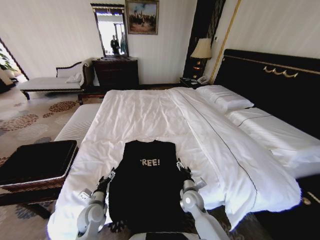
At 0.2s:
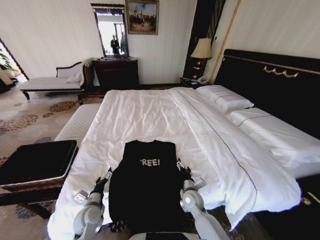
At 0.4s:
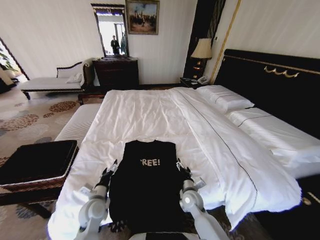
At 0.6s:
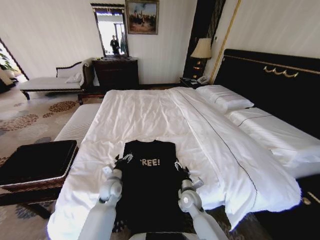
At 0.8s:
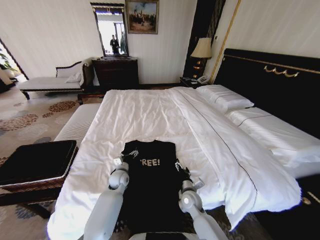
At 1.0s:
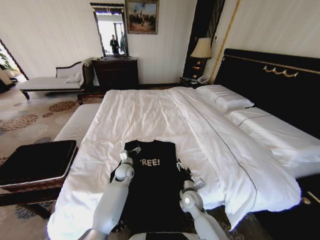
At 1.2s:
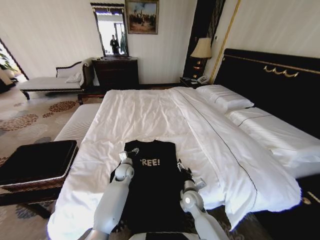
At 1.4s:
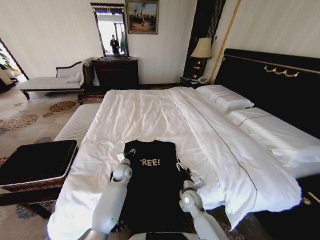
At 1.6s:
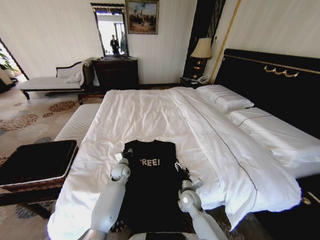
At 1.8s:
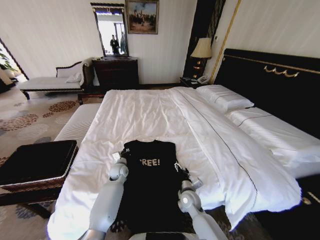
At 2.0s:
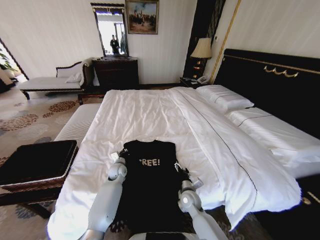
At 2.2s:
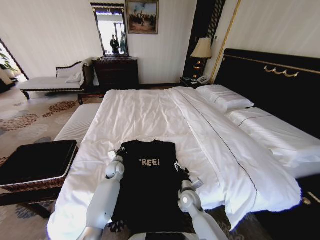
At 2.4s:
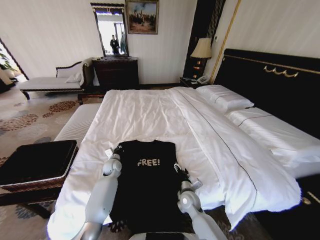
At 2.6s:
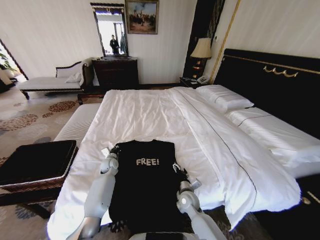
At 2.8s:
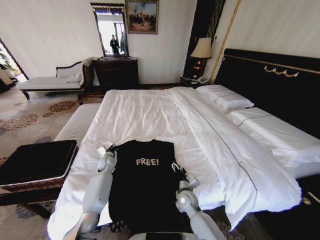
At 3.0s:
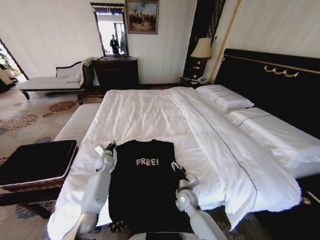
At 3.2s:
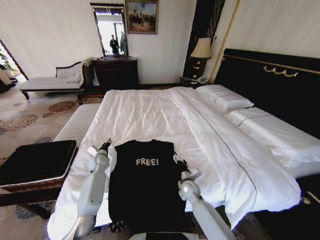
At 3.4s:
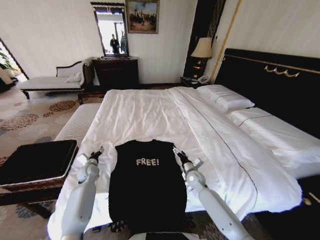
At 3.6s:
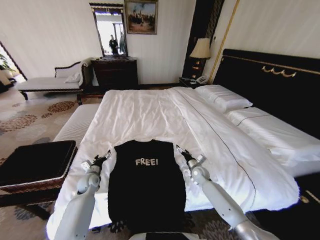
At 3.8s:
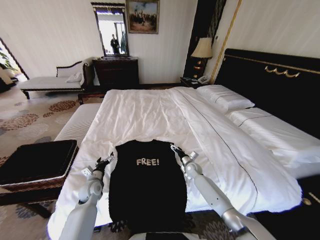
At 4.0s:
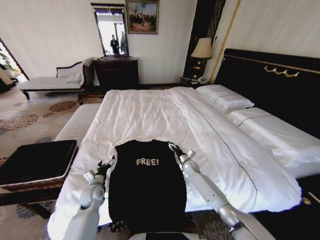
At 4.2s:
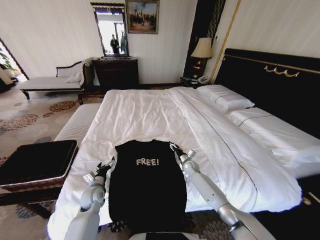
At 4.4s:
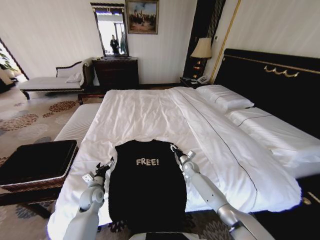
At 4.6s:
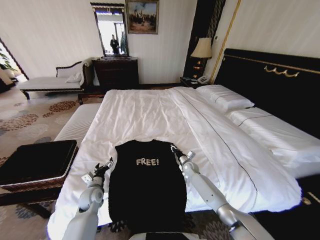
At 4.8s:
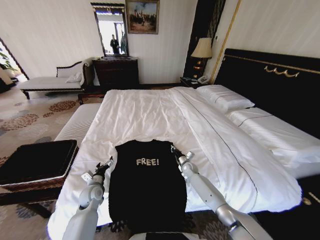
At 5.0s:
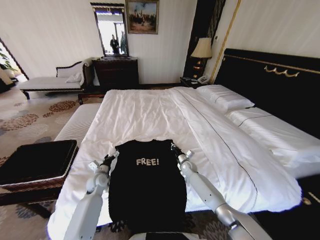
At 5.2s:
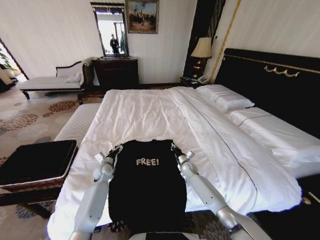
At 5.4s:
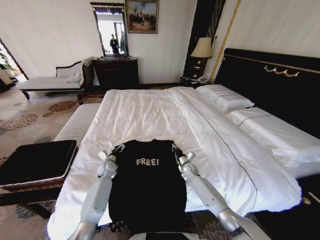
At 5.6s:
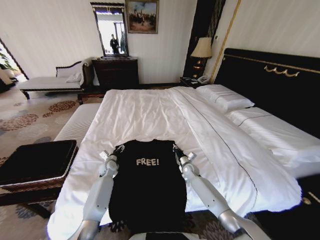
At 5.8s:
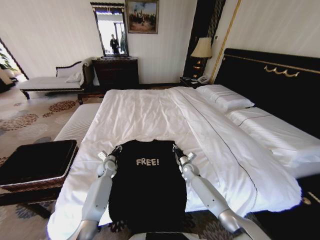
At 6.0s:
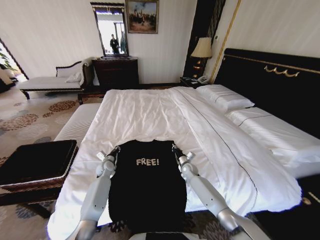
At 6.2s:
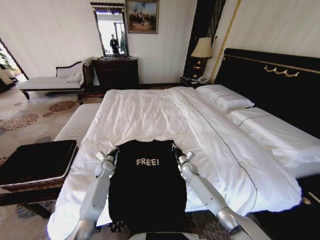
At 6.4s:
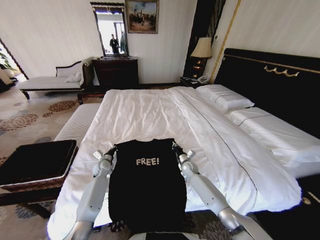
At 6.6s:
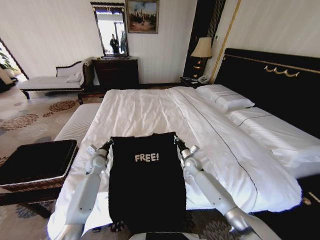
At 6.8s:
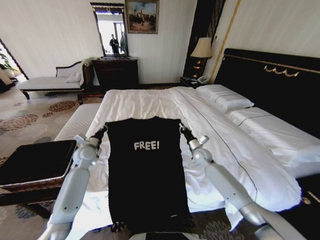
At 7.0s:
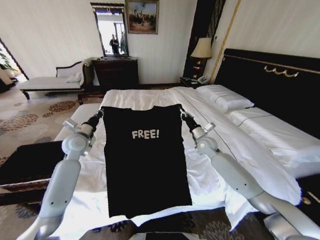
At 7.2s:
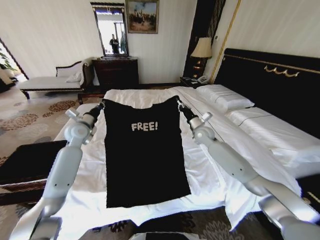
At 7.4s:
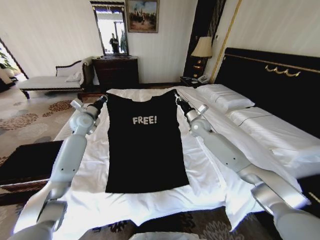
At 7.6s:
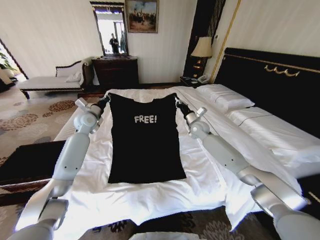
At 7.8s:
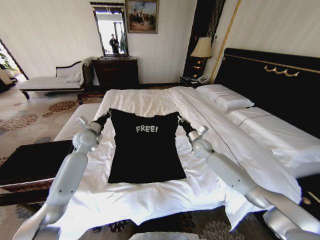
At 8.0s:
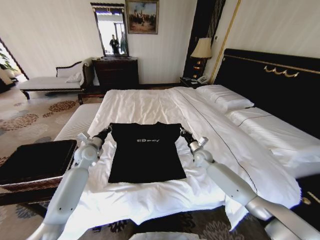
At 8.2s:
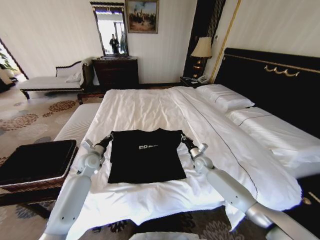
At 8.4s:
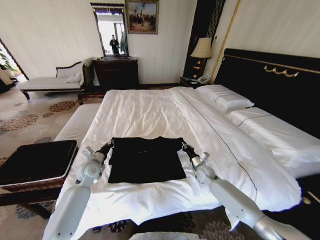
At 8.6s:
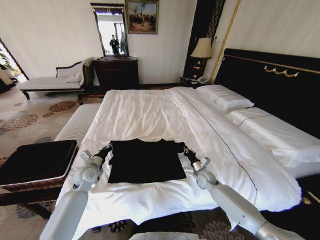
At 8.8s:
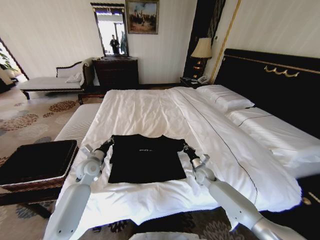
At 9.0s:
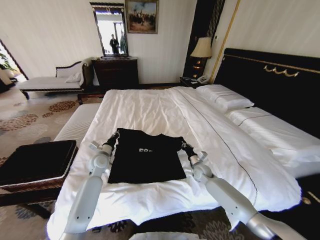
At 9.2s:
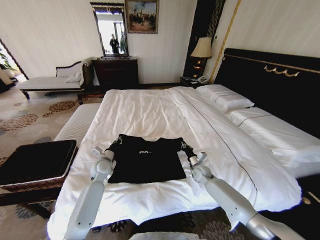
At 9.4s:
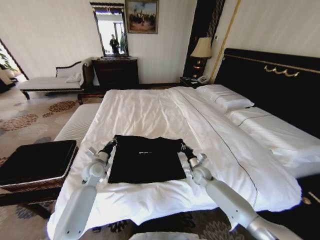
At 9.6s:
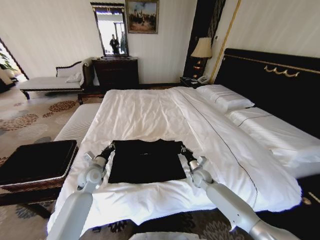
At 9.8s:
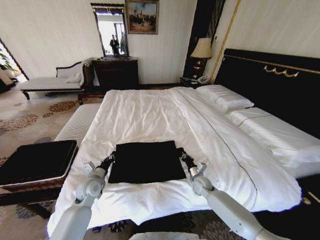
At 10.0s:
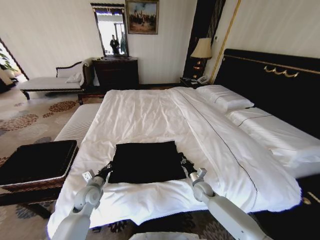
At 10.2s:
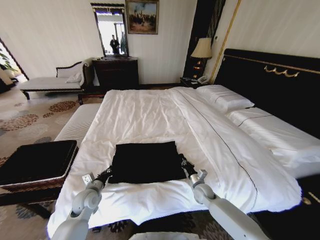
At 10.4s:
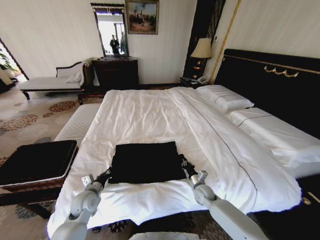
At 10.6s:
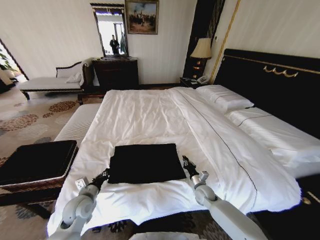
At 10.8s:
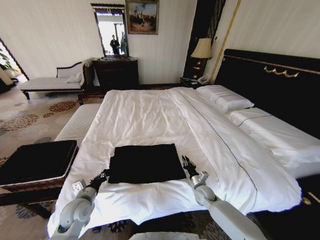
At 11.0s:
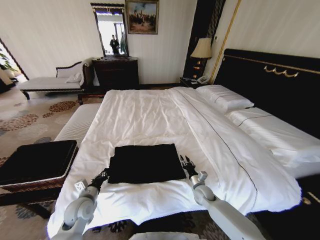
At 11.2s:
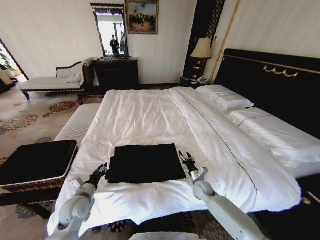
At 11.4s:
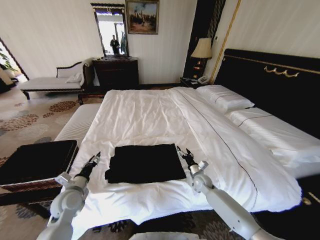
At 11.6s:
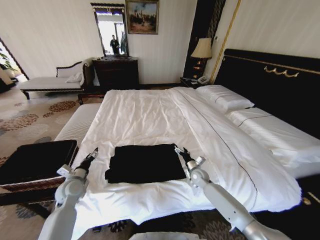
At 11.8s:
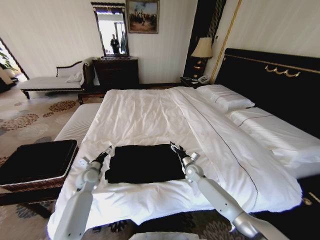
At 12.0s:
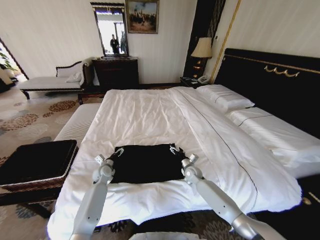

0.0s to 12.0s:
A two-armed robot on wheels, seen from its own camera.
Task of the whole recording: Fold the clothes on the bed and place them into the basket.
0.0s to 1.6s: The left gripper is displaced forward and to the right by approximately 20 cm, and closes its fingers.
1.6s to 3.0s: The left gripper goes approximately 10 cm to the left and forward.
3.0s to 4.4s: The right gripper goes roughly 20 cm forward and to the right, and closes, while the left gripper is displaced backward by about 20 cm, and opens.
4.4s to 6.0s: The right gripper closes its fingers. Meanwhile the left gripper heads forward, covering approximately 15 cm, and closes up.
6.0s to 7.6s: The left gripper shifts approximately 25 cm upward. The right gripper goes some 25 cm upward and forward.
7.6s to 9.0s: Both grippers travel together downward and backward, approximately 20 cm.
9.0s to 10.4s: The two grippers go roughly 15 cm backward and downward.
10.4s to 12.0s: The grippers both shift forward by some 10 cm. The right gripper opens its fingers; the left gripper opens.

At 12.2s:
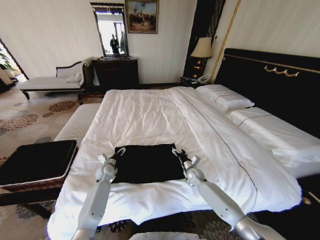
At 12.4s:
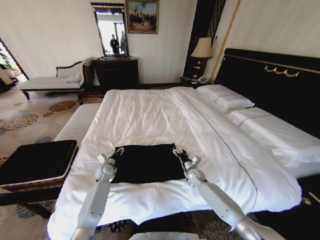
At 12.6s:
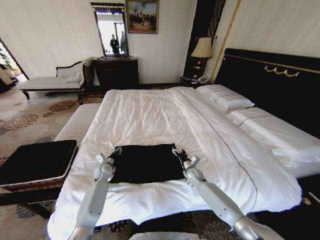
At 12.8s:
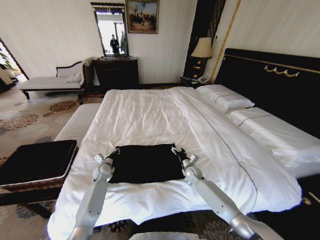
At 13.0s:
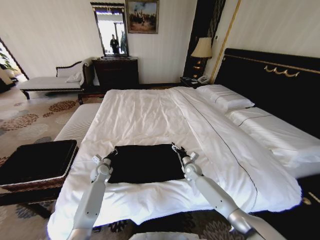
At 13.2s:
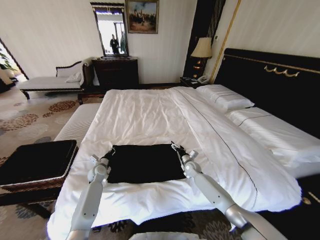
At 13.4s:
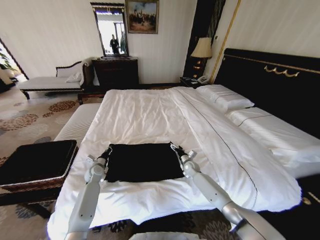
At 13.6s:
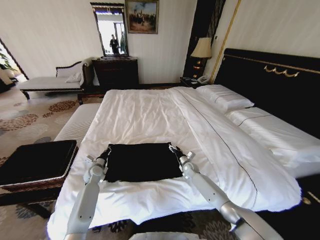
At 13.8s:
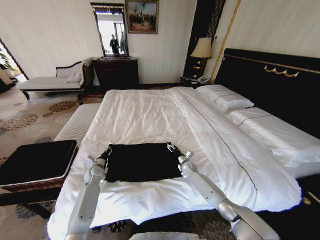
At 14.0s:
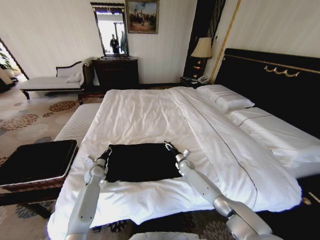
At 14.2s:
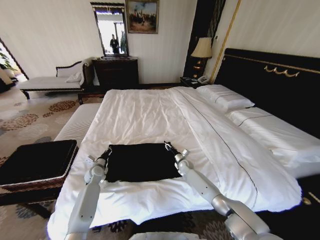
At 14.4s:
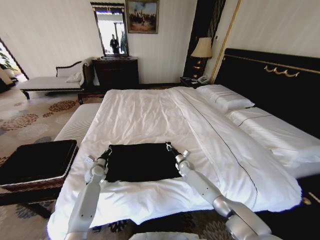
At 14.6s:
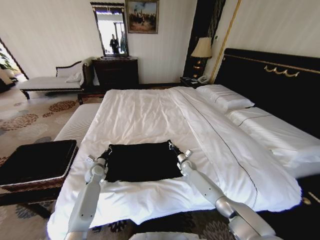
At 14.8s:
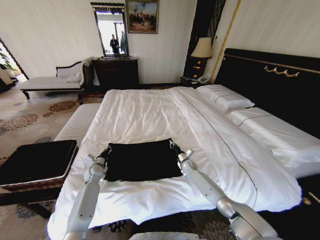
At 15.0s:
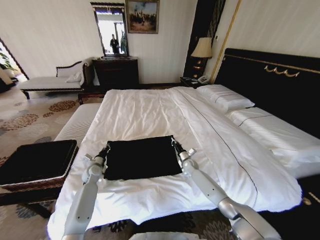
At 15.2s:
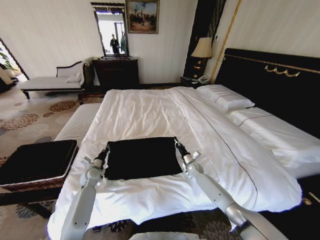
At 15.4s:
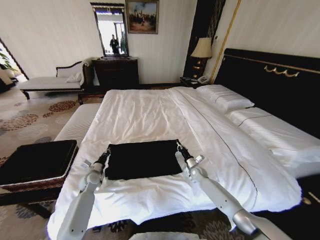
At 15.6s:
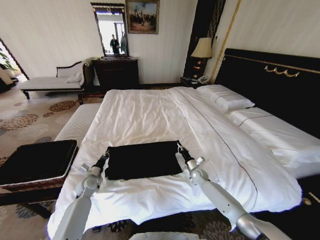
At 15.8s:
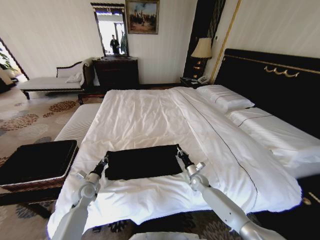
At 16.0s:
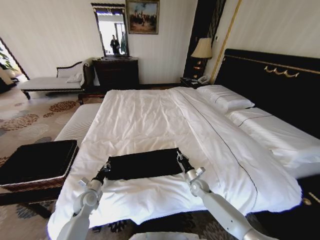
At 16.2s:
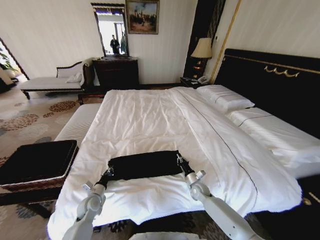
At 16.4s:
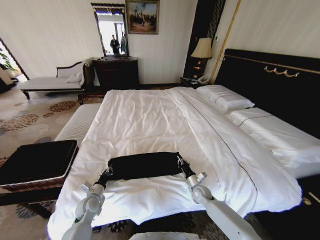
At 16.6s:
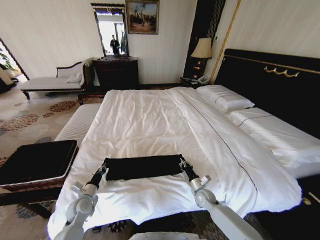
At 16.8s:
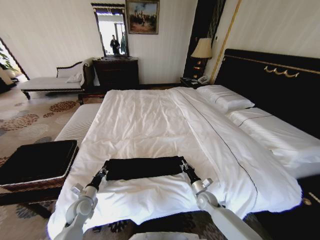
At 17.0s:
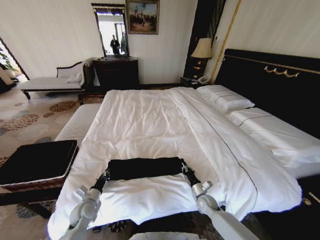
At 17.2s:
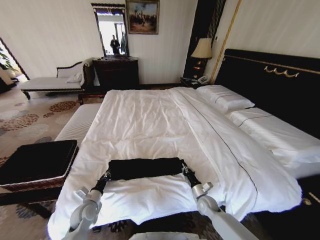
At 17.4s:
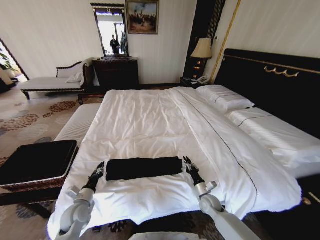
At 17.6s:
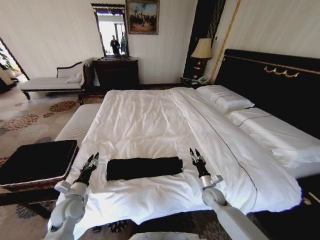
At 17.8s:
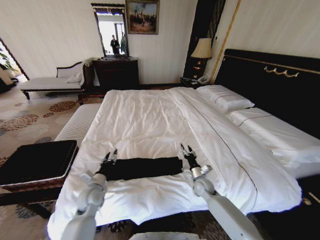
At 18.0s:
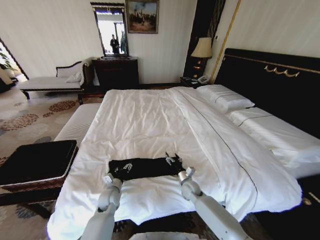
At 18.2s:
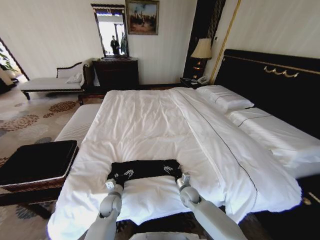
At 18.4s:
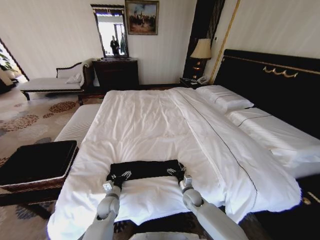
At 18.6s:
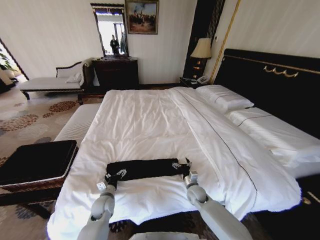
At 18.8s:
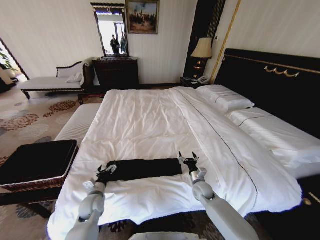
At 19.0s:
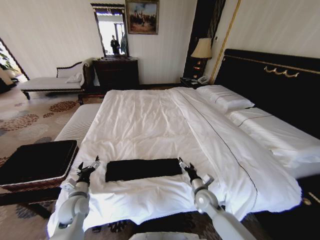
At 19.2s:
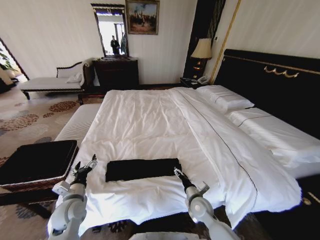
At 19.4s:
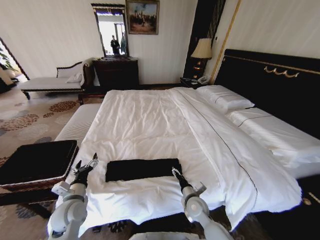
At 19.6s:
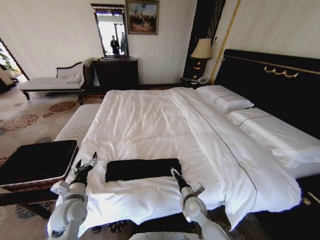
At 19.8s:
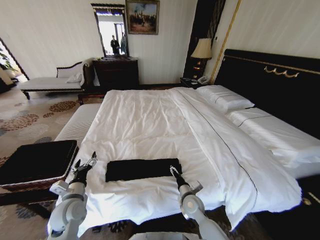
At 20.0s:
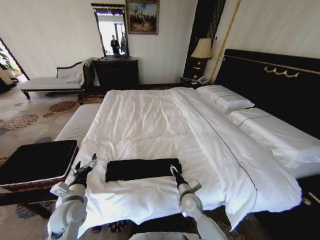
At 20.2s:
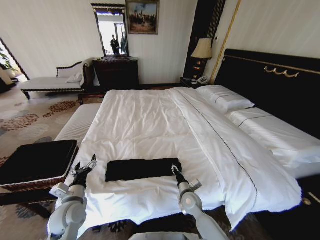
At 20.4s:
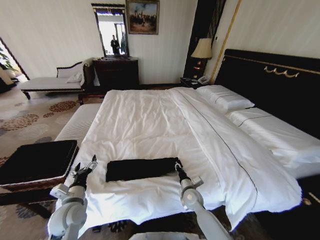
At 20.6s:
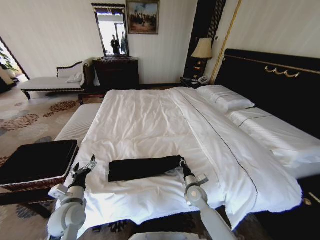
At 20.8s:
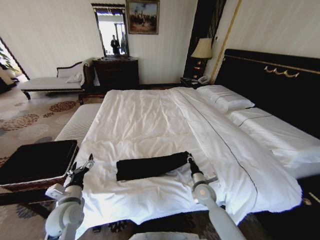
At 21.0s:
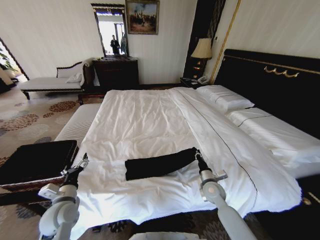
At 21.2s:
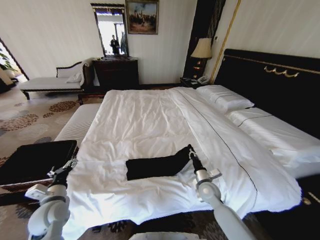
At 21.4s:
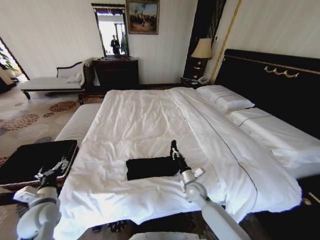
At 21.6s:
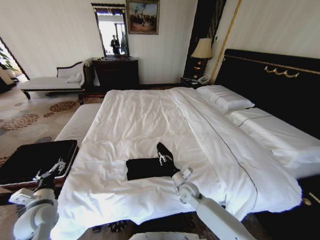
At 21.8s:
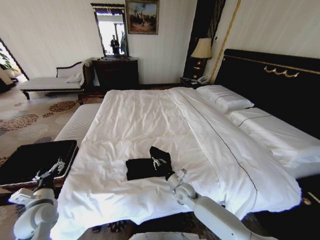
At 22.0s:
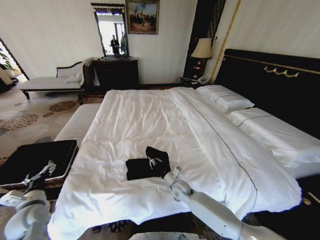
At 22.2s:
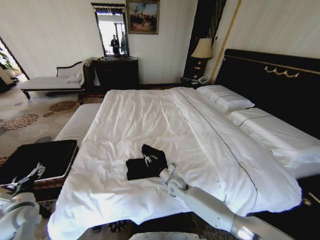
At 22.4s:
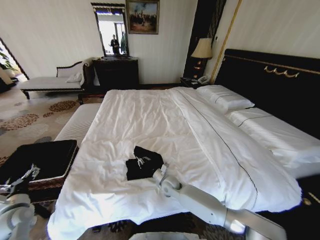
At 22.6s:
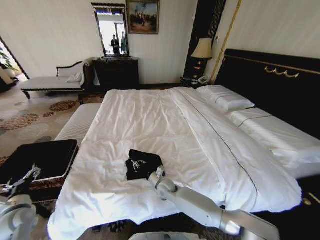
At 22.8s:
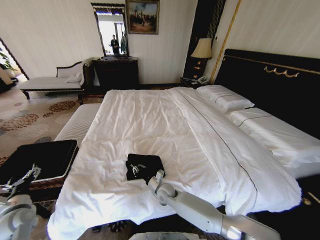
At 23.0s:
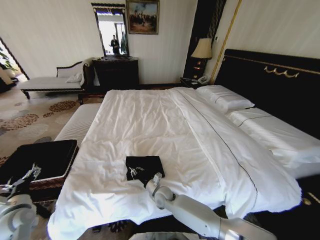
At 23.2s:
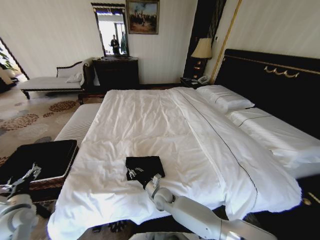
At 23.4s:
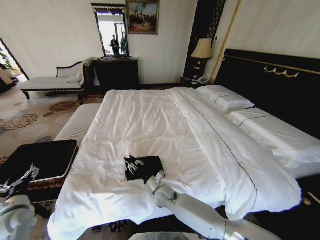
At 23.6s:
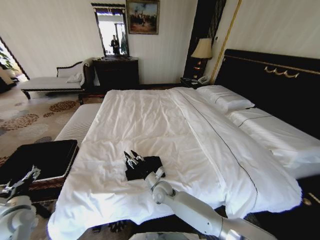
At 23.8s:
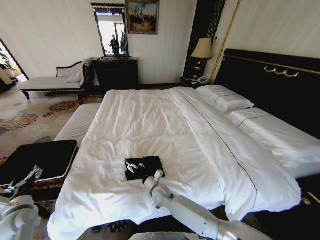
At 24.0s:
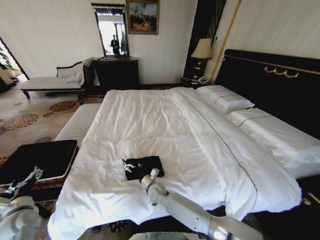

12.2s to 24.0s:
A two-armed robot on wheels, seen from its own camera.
Task of the whole recording: Fold the clothes on the bed and place them into the basket.
12.2s to 13.6s: The right gripper goes some 5 cm forward. The left gripper goes roughly 5 cm to the left, and closes its fingers.
13.6s to 15.2s: The right gripper closes up.
15.2s to 16.6s: The two grippers go roughly 15 cm backward.
16.6s to 18.2s: The left gripper is displaced to the right by some 10 cm, and opens its fingers. Meanwhile the right gripper travels to the left by some 10 cm, and opens.
18.2s to 19.6s: The right gripper travels backward and upward by roughly 10 cm; the left gripper shifts some 20 cm upward and to the left.
19.6s to 21.0s: The right gripper travels to the right and forward by about 10 cm, and closes its fingers.
21.0s to 22.6s: The two grippers go about 20 cm to the left.
22.6s to 24.0s: The right gripper moves roughly 5 cm, and opens its fingers.
